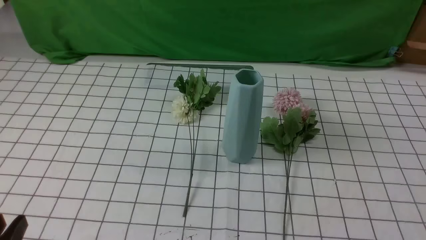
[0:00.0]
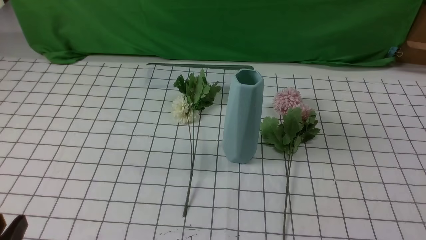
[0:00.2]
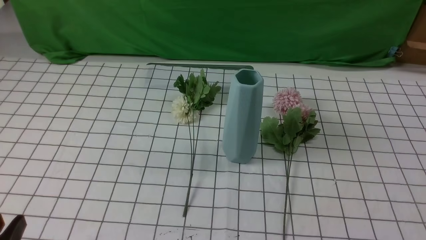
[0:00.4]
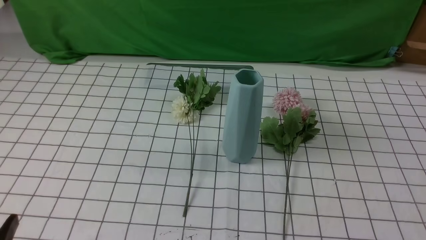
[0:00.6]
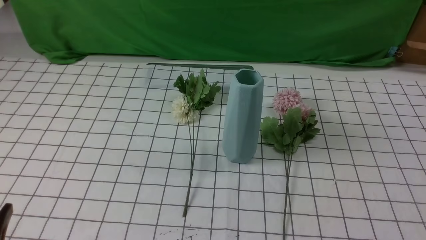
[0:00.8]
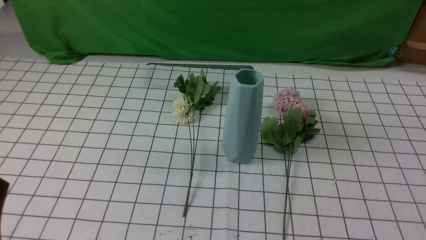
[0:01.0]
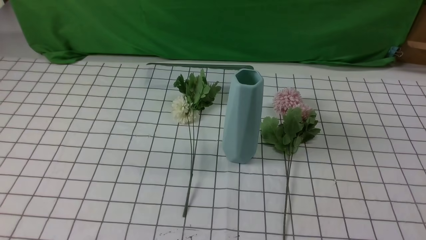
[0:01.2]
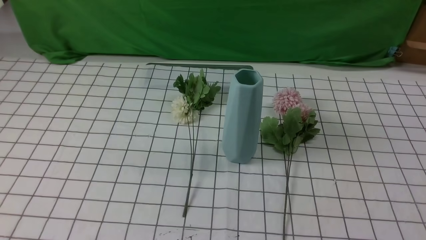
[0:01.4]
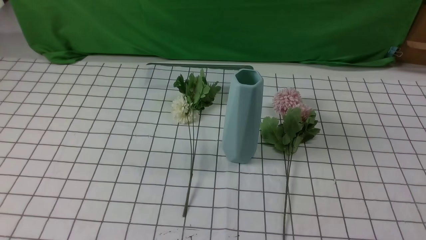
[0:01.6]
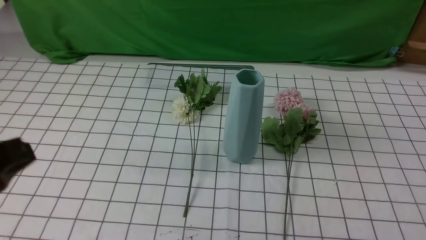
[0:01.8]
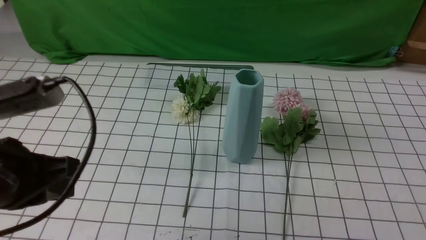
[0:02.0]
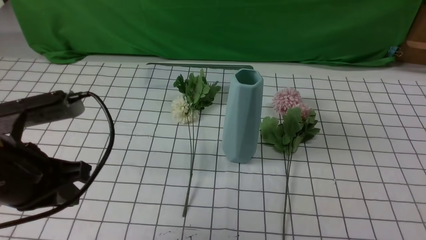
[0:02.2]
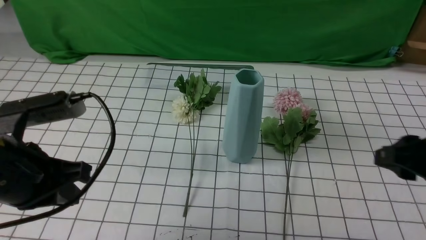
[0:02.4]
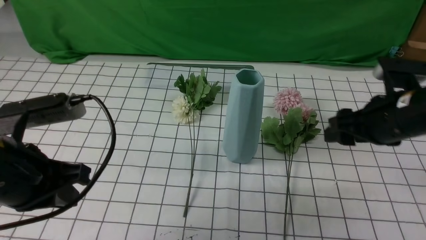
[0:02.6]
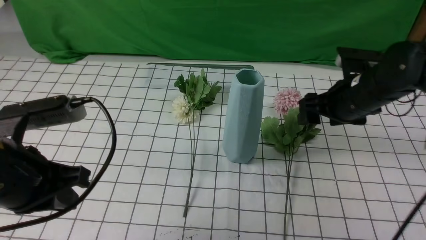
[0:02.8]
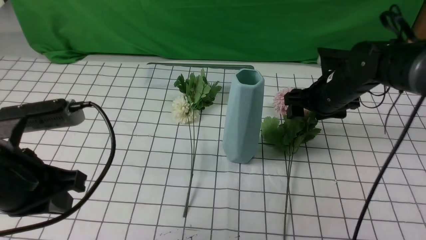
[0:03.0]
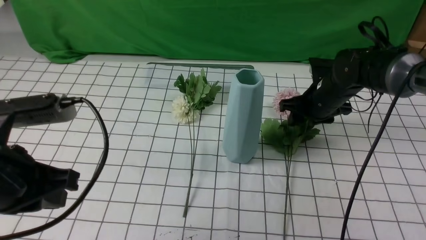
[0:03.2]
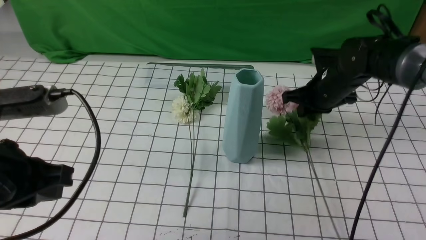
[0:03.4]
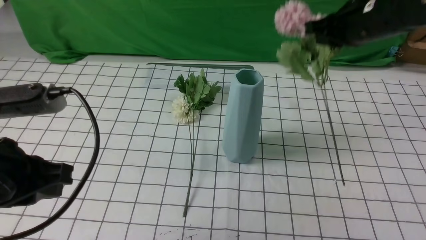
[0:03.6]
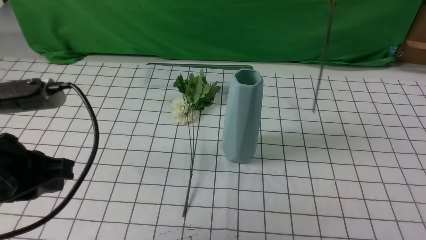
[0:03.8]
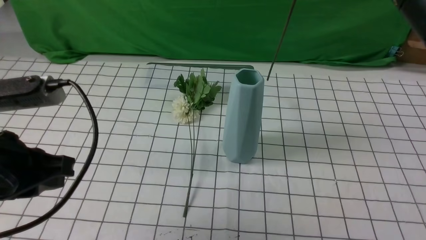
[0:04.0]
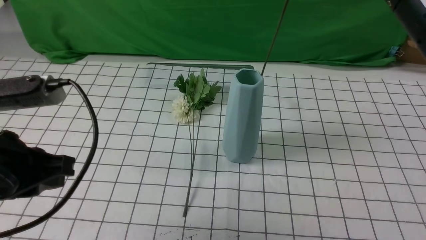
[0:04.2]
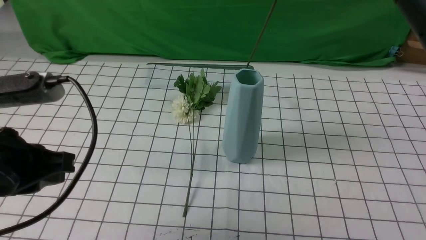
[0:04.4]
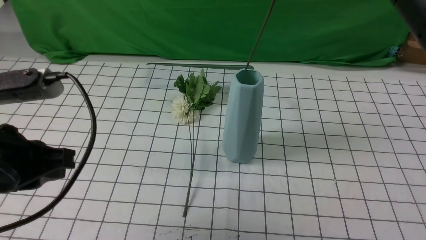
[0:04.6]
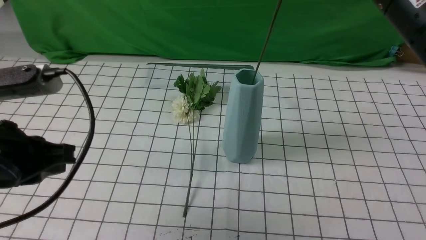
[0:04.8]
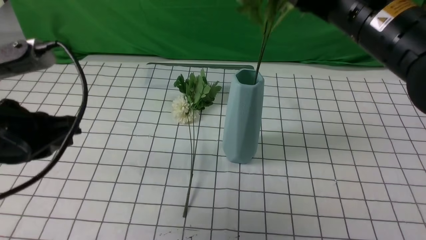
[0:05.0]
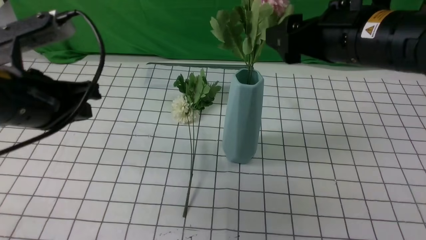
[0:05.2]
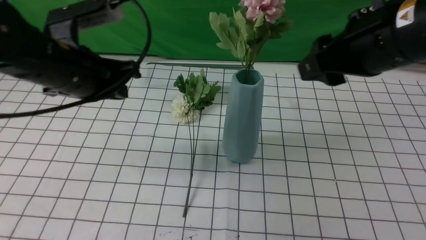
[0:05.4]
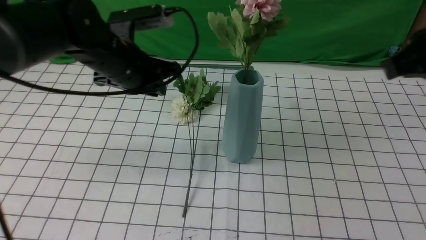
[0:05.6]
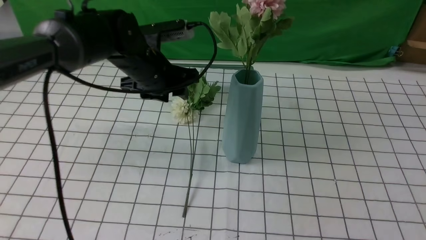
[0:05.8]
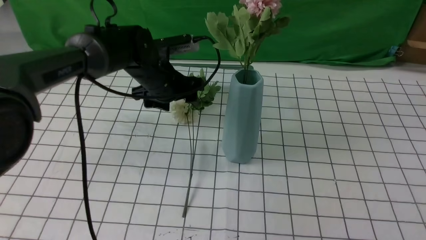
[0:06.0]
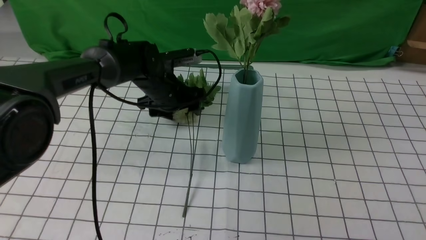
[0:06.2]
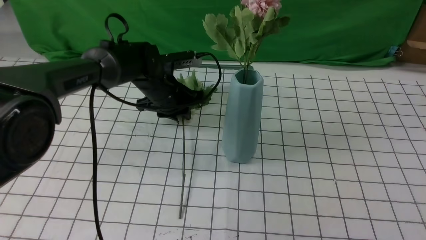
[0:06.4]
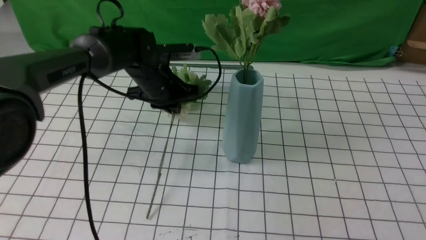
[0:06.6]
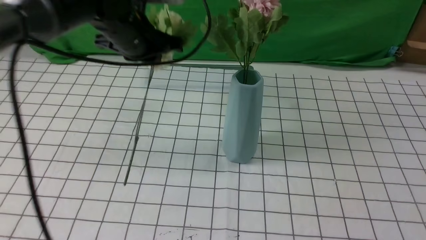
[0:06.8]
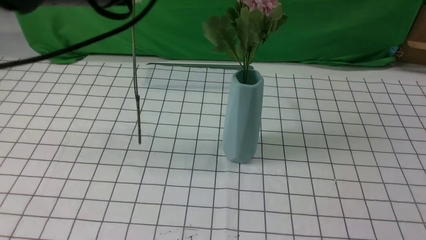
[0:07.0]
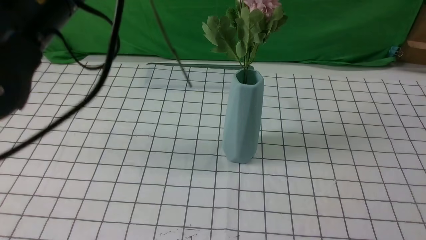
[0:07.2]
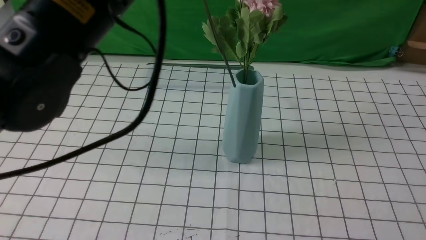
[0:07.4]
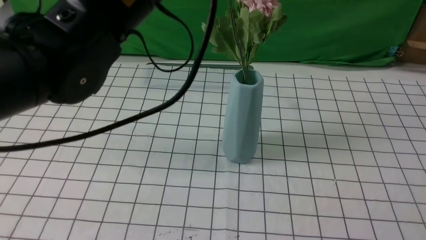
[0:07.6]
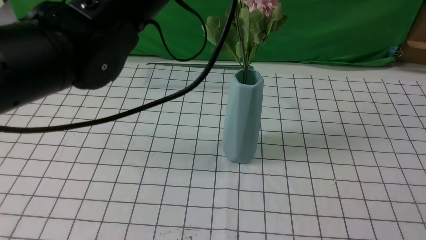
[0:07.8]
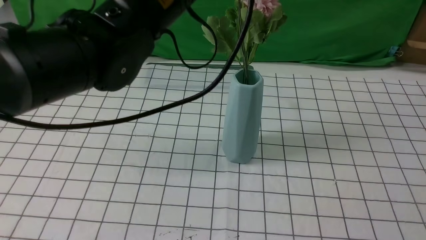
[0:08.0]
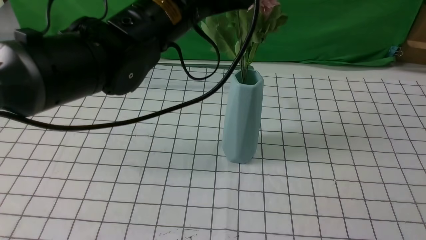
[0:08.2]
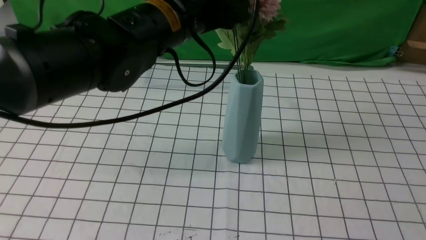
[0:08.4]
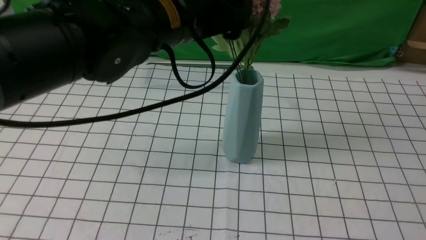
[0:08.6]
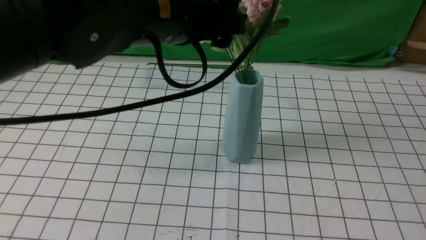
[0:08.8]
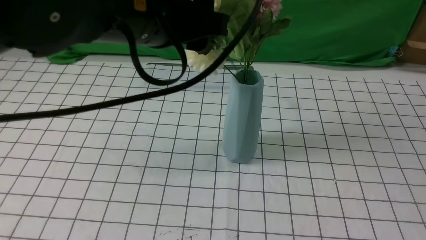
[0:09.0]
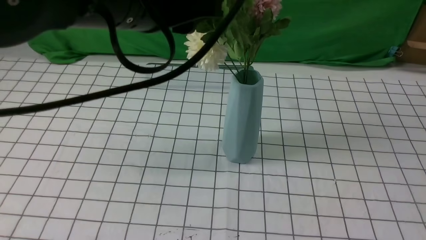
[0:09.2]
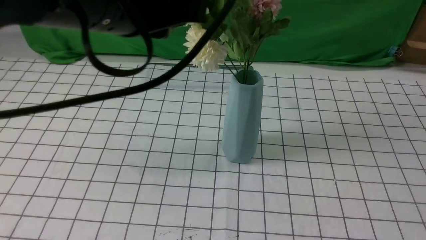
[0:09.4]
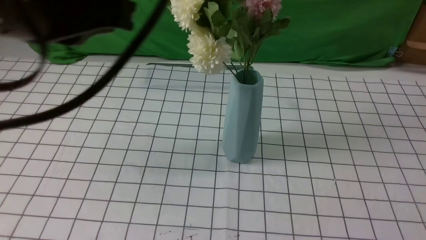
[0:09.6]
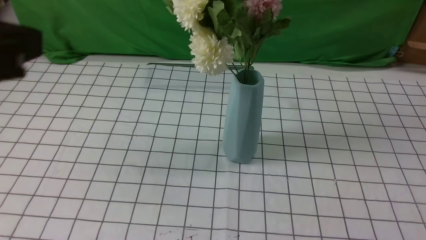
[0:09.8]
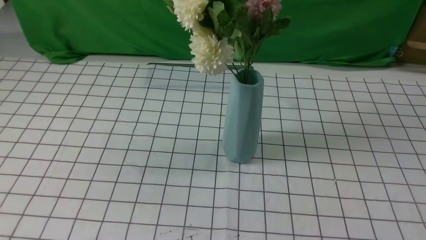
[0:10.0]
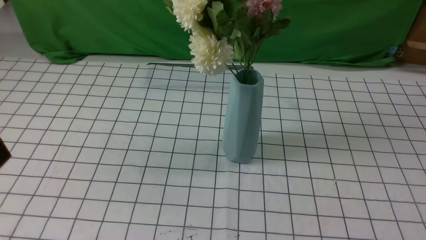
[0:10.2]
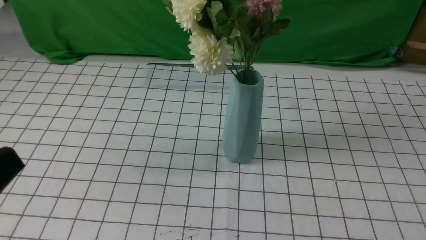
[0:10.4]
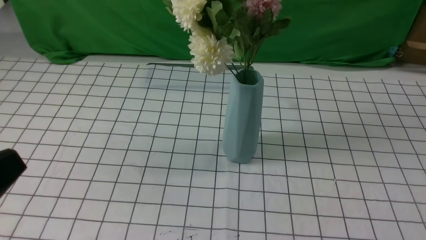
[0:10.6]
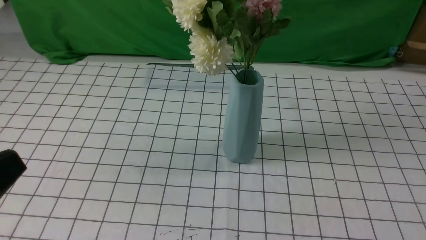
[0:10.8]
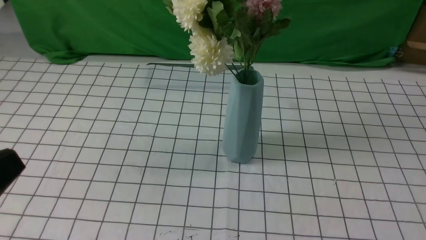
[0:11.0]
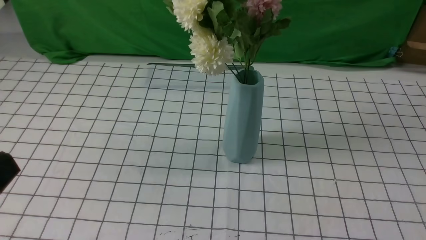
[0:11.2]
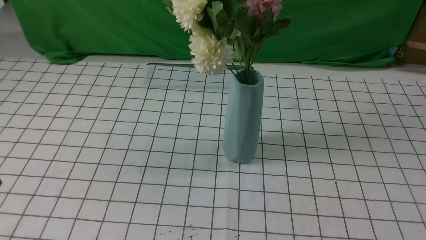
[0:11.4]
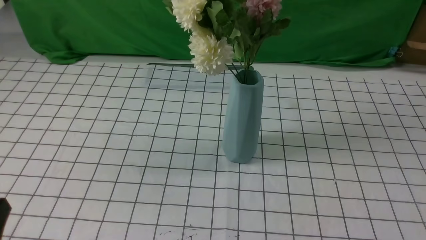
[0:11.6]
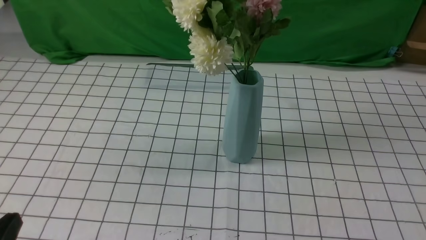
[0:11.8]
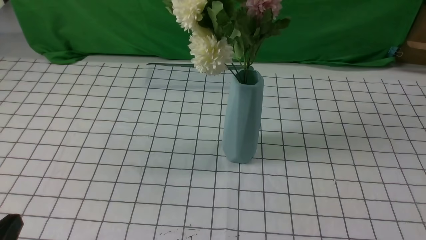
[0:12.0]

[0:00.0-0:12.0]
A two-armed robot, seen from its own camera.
Task of the whole recording: insert the flowers into the vase on the table with the white tablecloth.
Step, 0:00.0 to 0:03.2: use the right arm to grab a bunch of fresh flowers.
Step, 0:03.4 to 0:05.2: use the right arm to insert the flowers into the vase.
Step, 0:05.6 to 0:06.4: use the left arm to grab a bunch of fresh flowers.
Step, 0:06.6 to 0:09.0: use the left arm to insert the flowers into the vase.
0:01.6 to 0:03.0: The right gripper moves forward, some 35 cm, and opens up. The left gripper shifts some 10 cm forward.
0:03.0 to 0:04.4: The right gripper heads upward and backward, covering about 25 cm, and closes its fingers.
0:04.4 to 0:06.0: The right gripper travels backward and to the right by some 15 cm, and opens, then closes again. The left gripper moves forward, to the right and downward, some 30 cm, and opens.
0:06.0 to 0:07.6: The right gripper shifts some 5 cm backward; the left gripper moves upward and backward, approximately 25 cm, and closes.
0:07.6 to 0:09.0: The left gripper opens.
0:09.0 to 0:10.4: The right gripper is displaced downward and backward by approximately 15 cm, while the left gripper shifts about 25 cm backward and to the left, and closes.
0:10.4 to 0:12.0: The left gripper shifts approximately 15 cm downward.

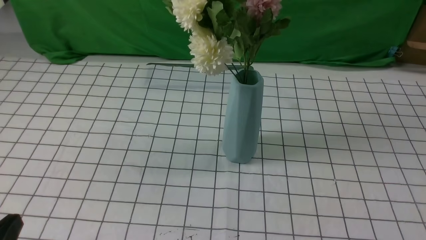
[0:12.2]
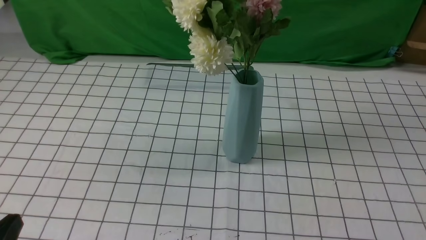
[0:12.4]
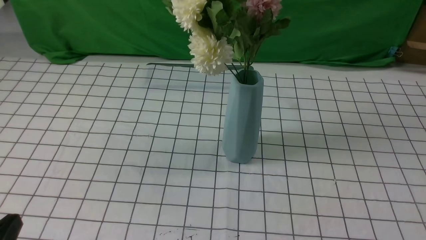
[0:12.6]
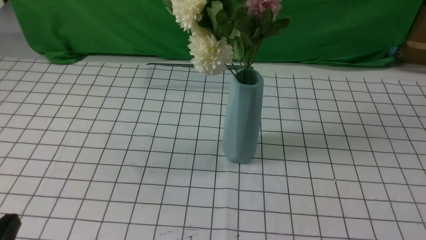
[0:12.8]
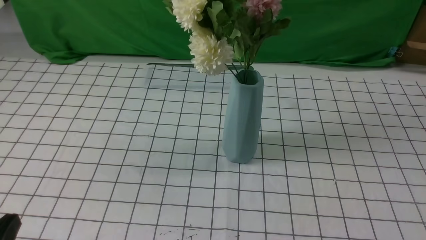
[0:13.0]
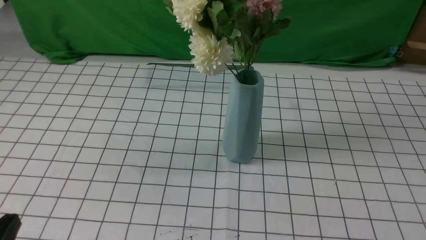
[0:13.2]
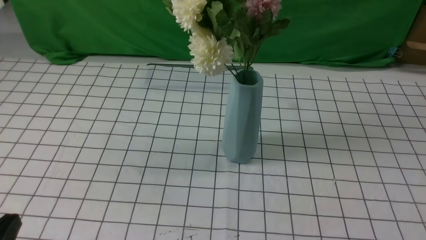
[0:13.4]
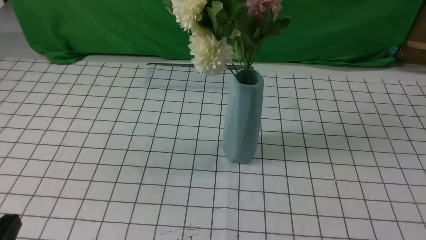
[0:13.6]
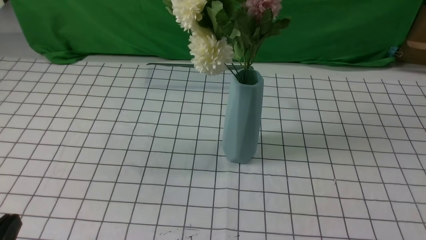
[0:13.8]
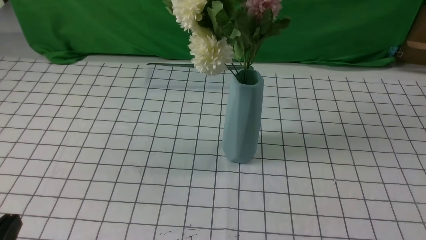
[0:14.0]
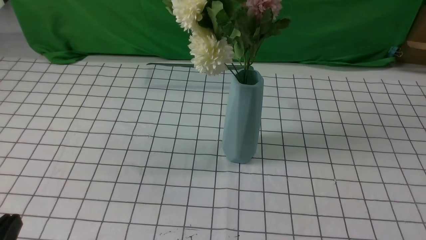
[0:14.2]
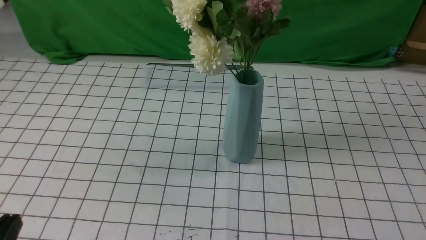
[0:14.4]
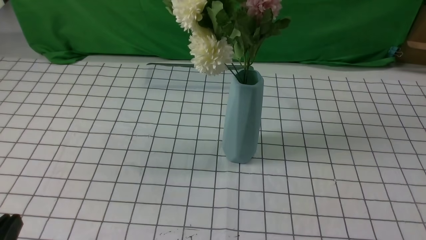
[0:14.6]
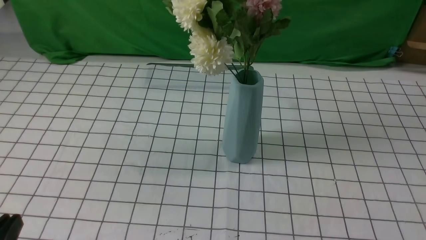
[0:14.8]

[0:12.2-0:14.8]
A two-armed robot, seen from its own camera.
Task of the whole recording: insert the flowers into the vase on the table with the white tablecloth.
0:13.4 to 0:14.8: Both grippers stay put.

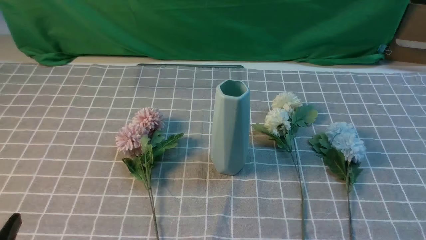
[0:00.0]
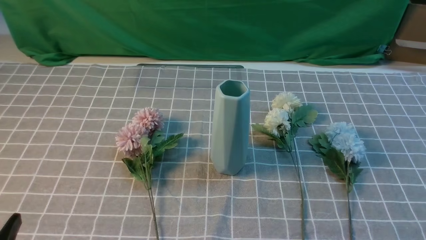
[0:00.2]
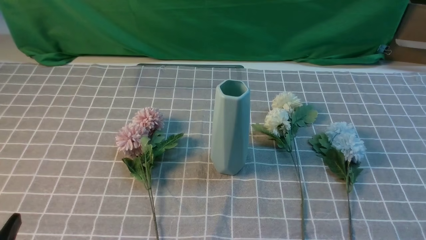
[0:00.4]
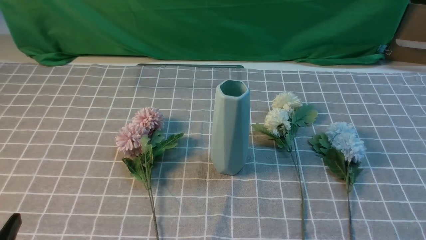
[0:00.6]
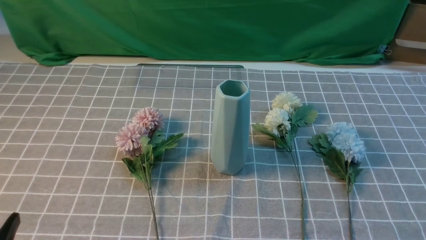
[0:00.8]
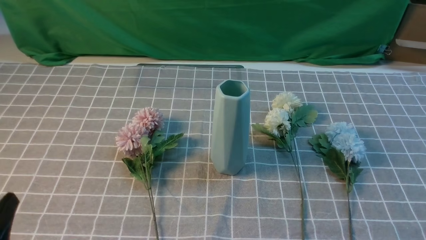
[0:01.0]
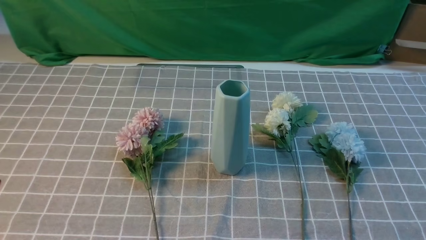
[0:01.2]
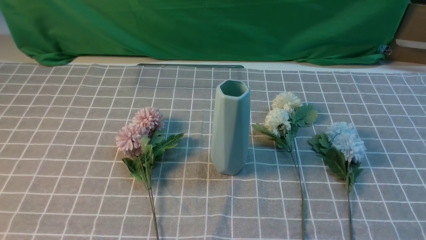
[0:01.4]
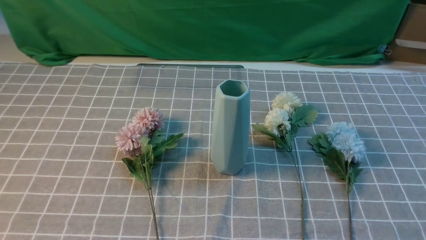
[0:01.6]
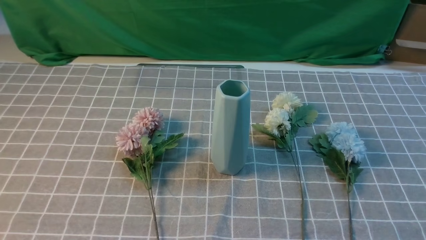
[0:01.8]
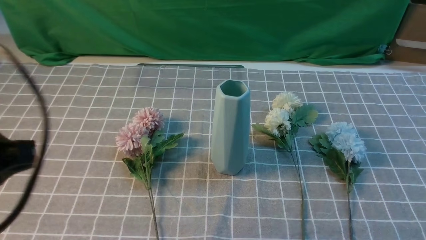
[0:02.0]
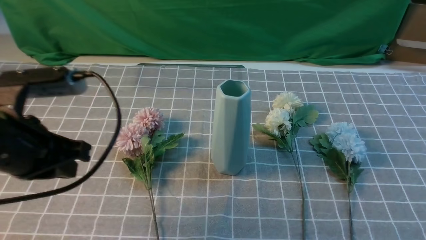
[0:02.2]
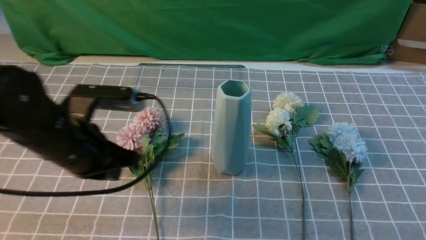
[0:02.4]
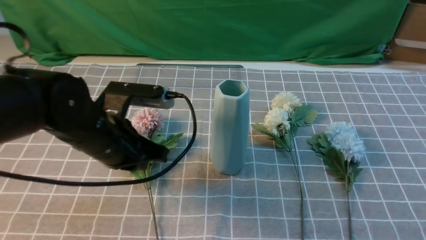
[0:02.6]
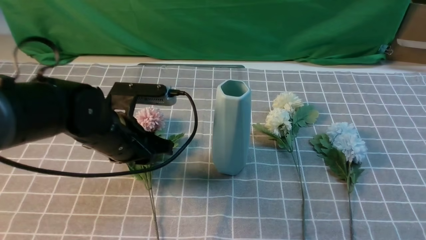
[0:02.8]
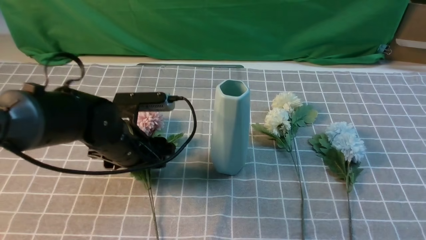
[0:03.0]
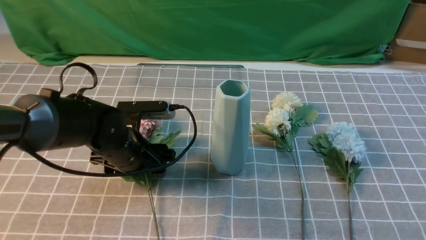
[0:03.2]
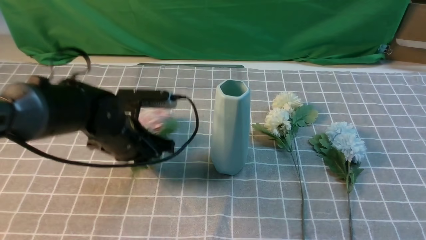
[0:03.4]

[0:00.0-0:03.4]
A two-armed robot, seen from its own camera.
Task of the whole recording: insert the flowers into the vase on the table with the grey tablecloth.
Step, 0:00.0 to 0:03.2: use the left arm to grab a bunch of fresh flowers.
0:01.6 to 0:03.4: The right gripper moves upward and forward, roughly 15 cm. The left gripper is displaced forward and to the right by approximately 30 cm, and opens and closes again.
